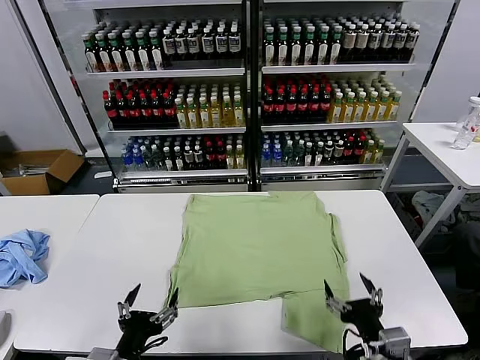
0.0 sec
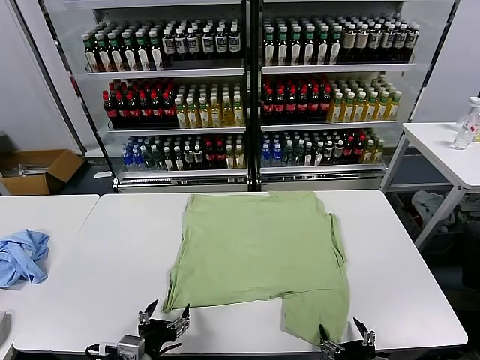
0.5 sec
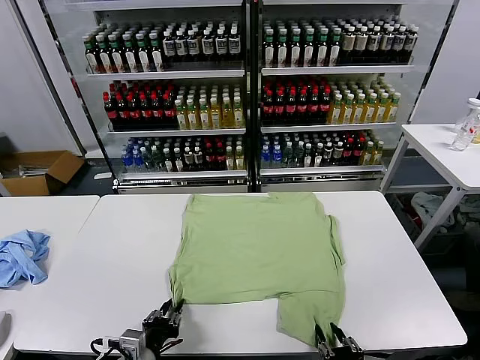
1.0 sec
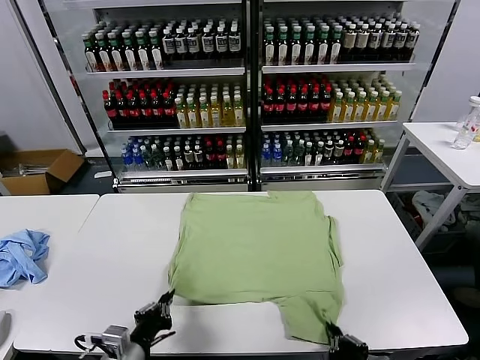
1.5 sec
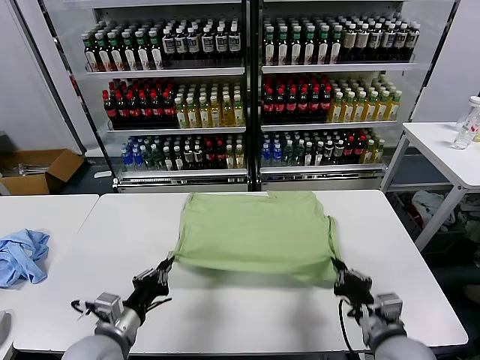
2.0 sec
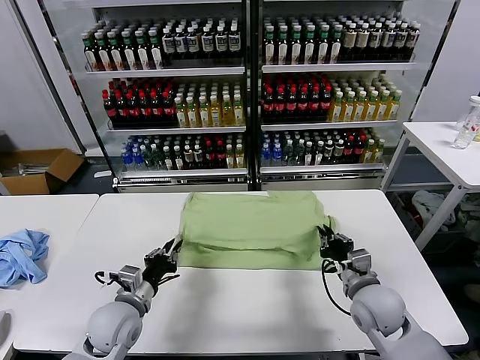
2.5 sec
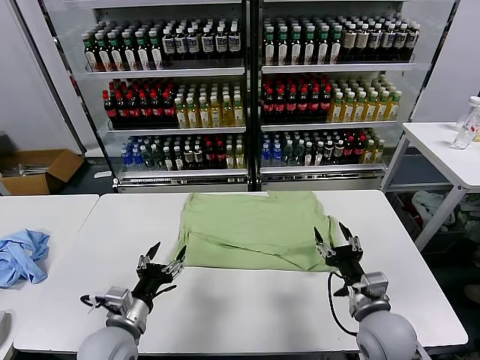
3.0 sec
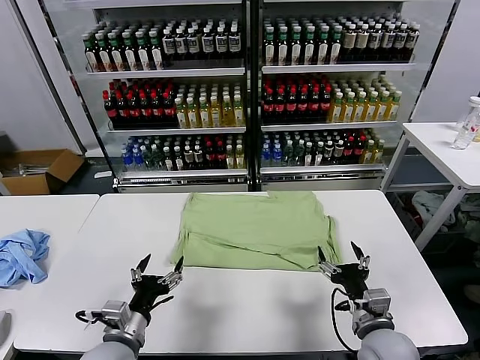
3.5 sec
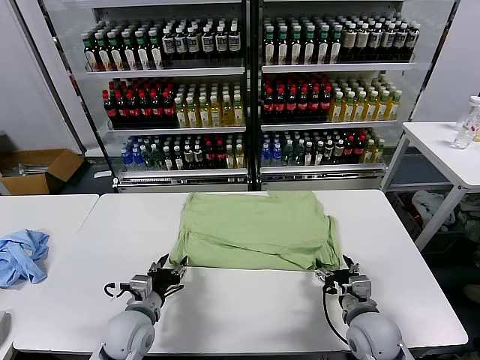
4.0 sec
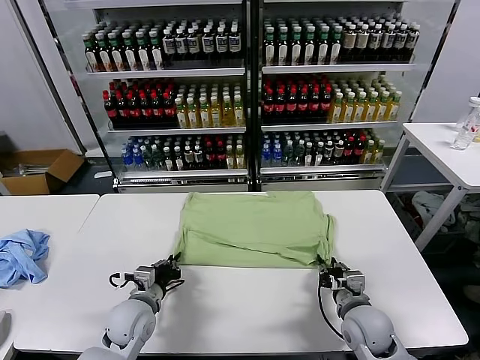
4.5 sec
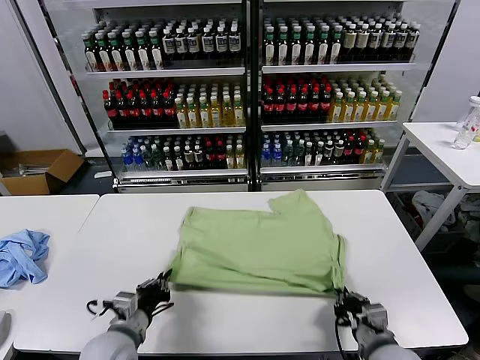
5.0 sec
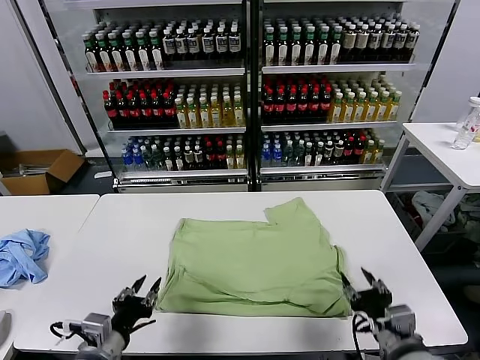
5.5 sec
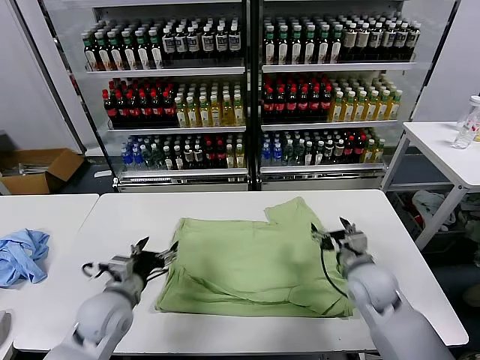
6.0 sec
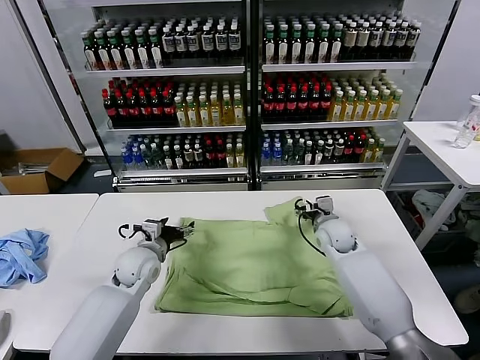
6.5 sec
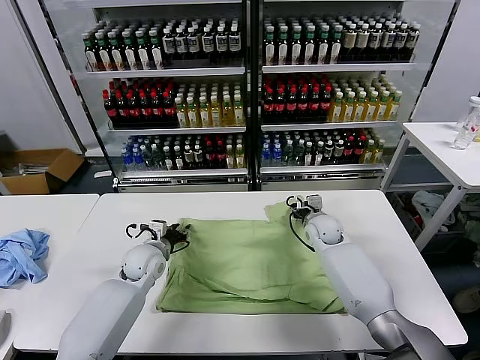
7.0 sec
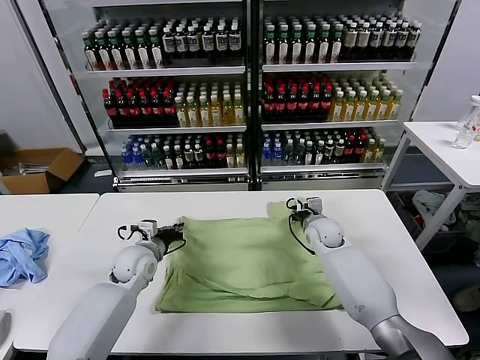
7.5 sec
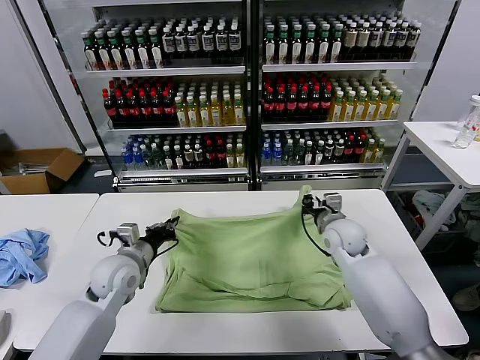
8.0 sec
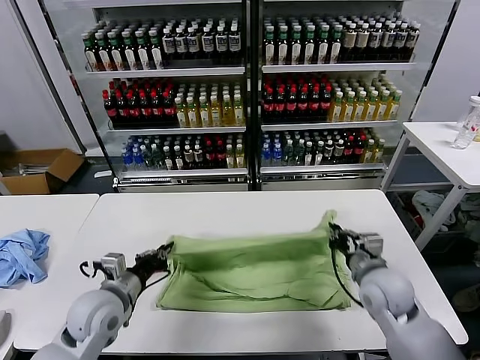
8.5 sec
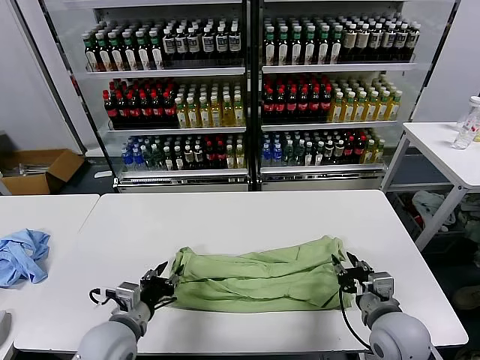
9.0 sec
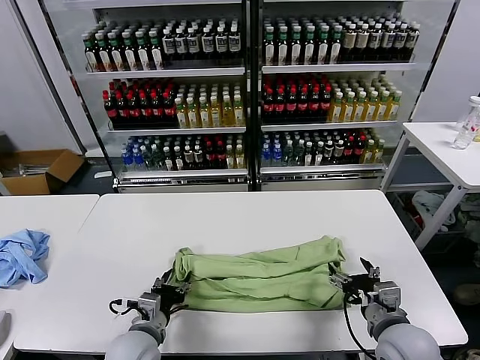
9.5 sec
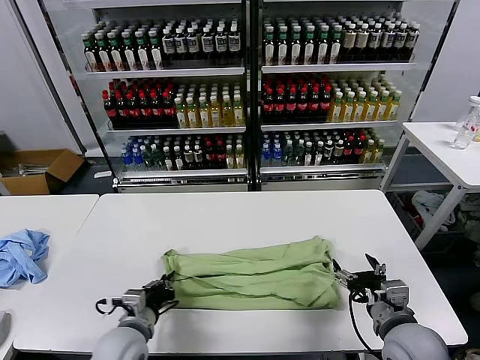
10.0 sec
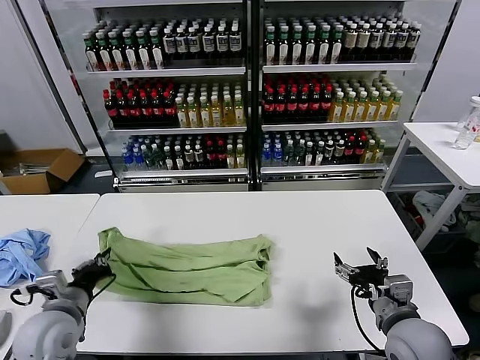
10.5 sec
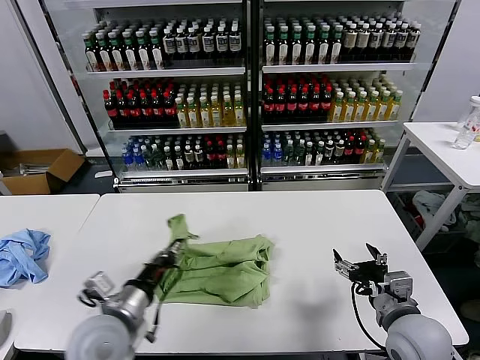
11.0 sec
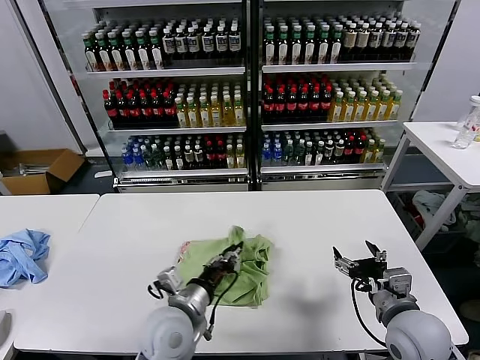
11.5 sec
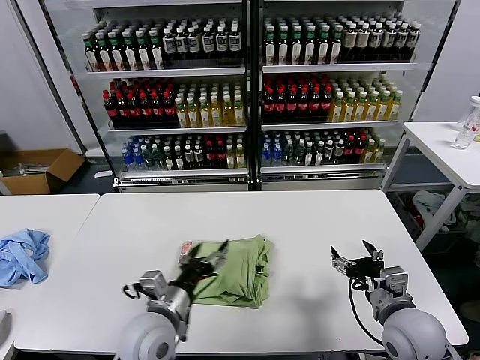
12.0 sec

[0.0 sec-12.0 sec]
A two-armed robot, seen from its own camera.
Task of the whole recording: fold and organize the clothes.
Step, 0.0 sec to 1.0 sec: use both grippers simultaneously to clamp the lower edge of the clothing fabric.
Step, 1.5 sec to 2.5 sec: use both grippers to drag the lower edge of the fabric forward and fold it over the upper edge.
Step, 3.5 sec to 5.0 sec: Drag the clothes downward with both gripper.
Step, 5.5 sec to 7.0 sec: use both grippers simultaneously to clamp the upper edge of the clothing fabric.
Step, 7.5 sec to 8.5 sec: use both grippers to drag the upper edge of the fabric backward and fold it over the lower edge.
Step, 9.0 sec to 10.0 sec: use the left gripper to clamp the left edge of the fabric.
Step, 10.5 sec to 11.5 sec: use the left gripper to drag the left edge of the fabric to the left and folds it over the right edge.
2.0 sec to 4.0 sec: The left gripper moves forward and backward over approximately 5 cm, changing direction 2 times, and opens up. Meanwhile the right gripper goes forward and backward, some 5 cm each way, reversing 2 times, and opens its fingers.
4.0 sec to 6.0 sec: The left gripper is displaced upward by approximately 5 cm, moves roughly 10 cm backward and comes back, and opens, while the right gripper heads forward and upward, covering approximately 15 cm, and closes and opens again.
6.0 sec to 8.0 sec: The two grippers go some 5 cm forward. The right gripper closes up. Meanwhile the left gripper closes its fingers.
8.0 sec to 10.0 sec: The left gripper goes roughly 15 cm backward and downward, and opens, then closes once more. The right gripper moves backward, approximately 25 cm, and opens.
10.0 sec to 12.0 sec: The left gripper heads to the right and upward, covering some 10 cm, and opens up.

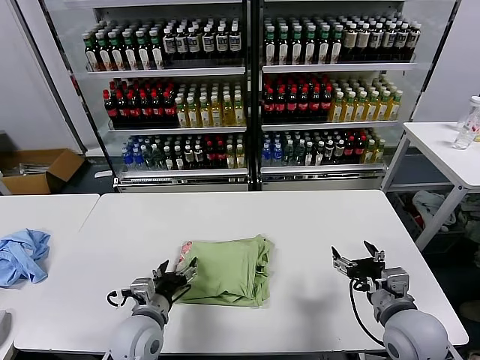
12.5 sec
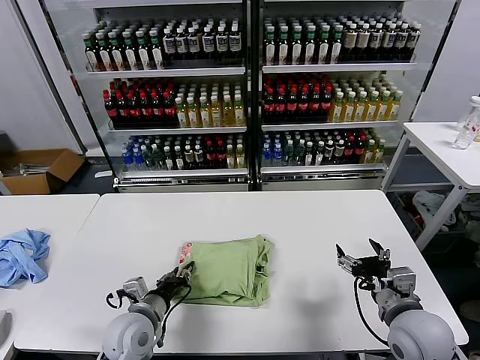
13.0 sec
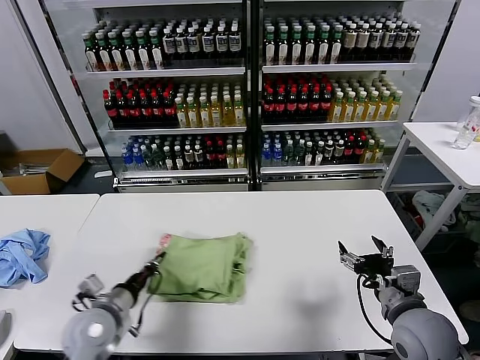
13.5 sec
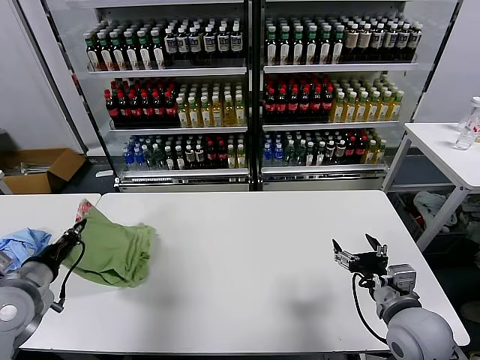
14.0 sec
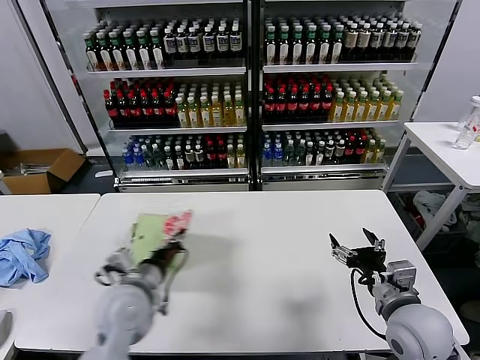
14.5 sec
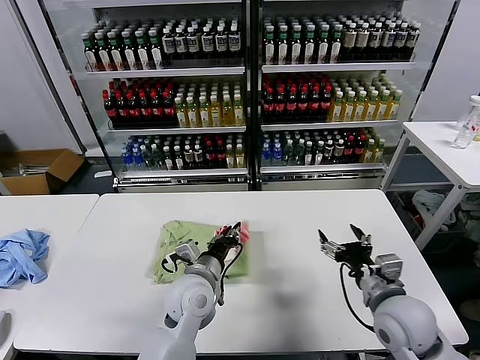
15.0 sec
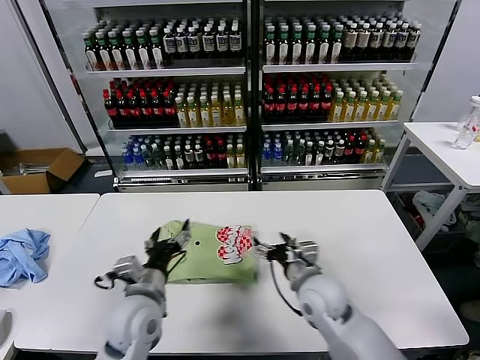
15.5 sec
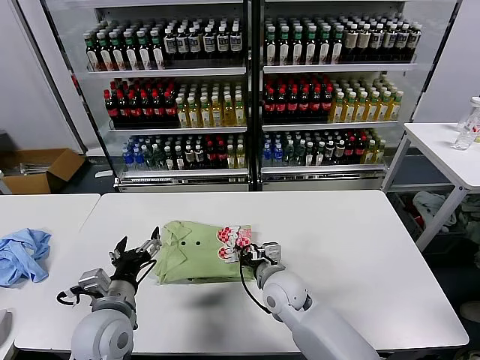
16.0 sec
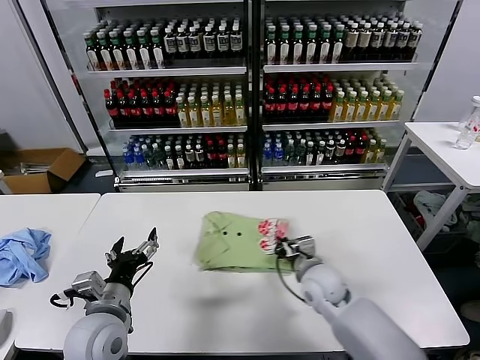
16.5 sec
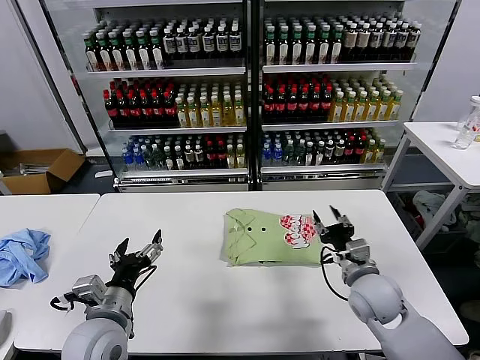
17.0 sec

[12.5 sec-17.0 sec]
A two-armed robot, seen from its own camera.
Task of the whole recording: fold and organize the clothes.
Step, 12.5 sec to 15.0 sec: Flip the folded clothes over with left gripper.
Step, 15.5 sec to 16.5 sec: Drag the clothes to the center of the table.
12.5 sec to 14.5 sec: The left gripper moves upward, roughly 10 cm, moves about 20 cm to the left and comes back, and closes up.
14.5 sec to 17.0 sec: The left gripper is displaced backward by approximately 5 cm, reaches roughly 15 cm to the right, then returns, and opens, while the right gripper shifts roughly 10 cm forward, goes to the left and returns, some 20 cm each way, and closes its fingers.

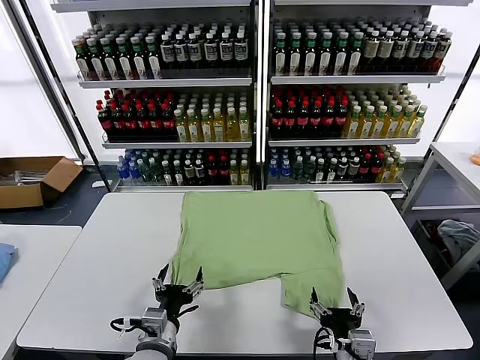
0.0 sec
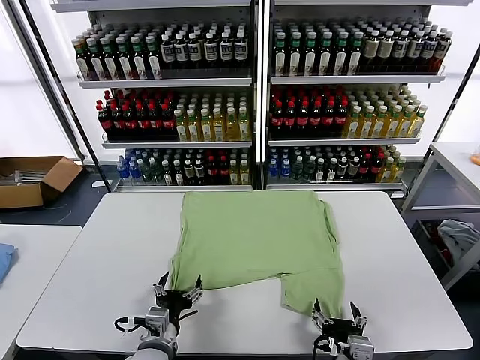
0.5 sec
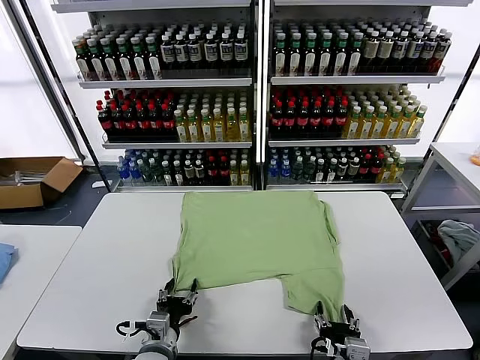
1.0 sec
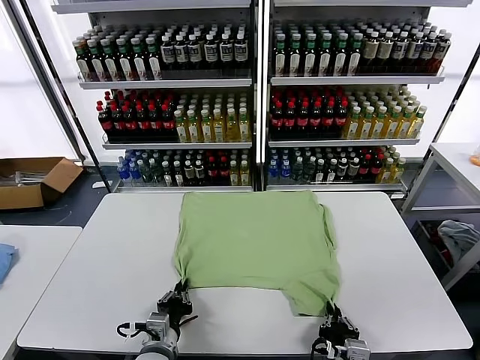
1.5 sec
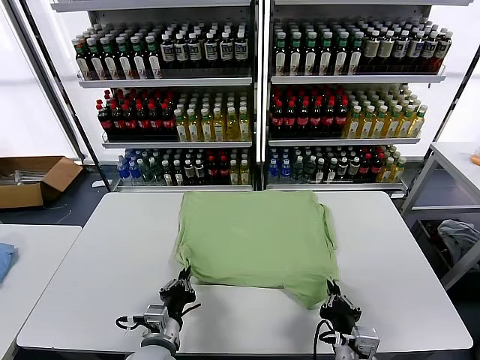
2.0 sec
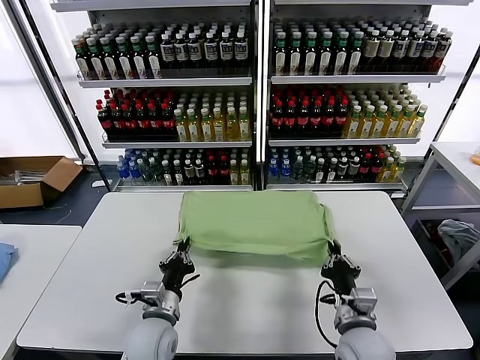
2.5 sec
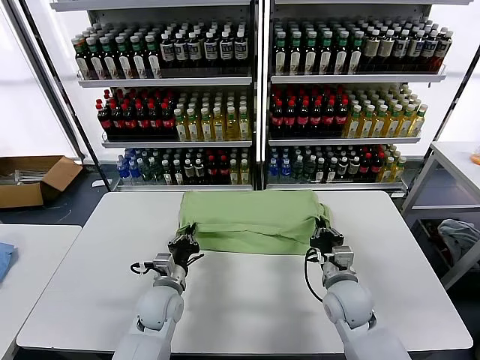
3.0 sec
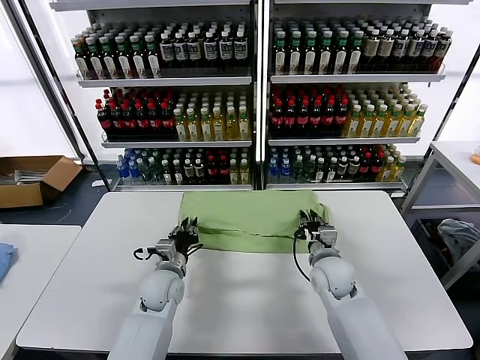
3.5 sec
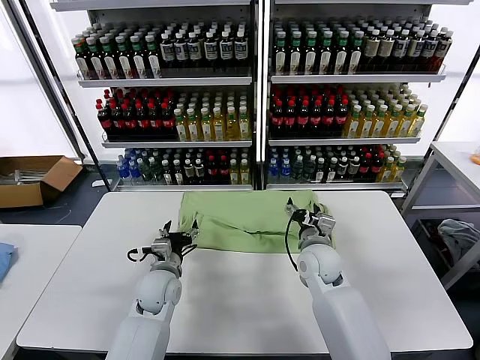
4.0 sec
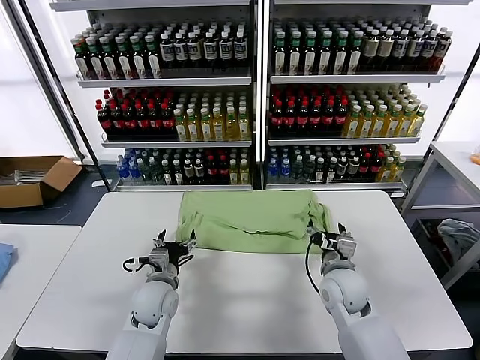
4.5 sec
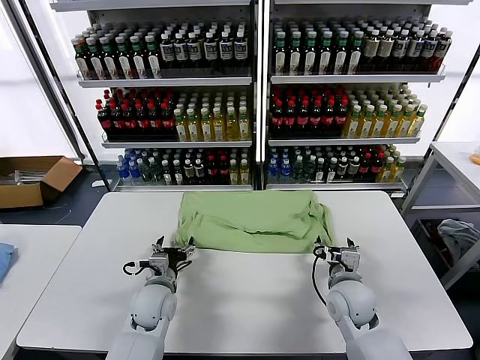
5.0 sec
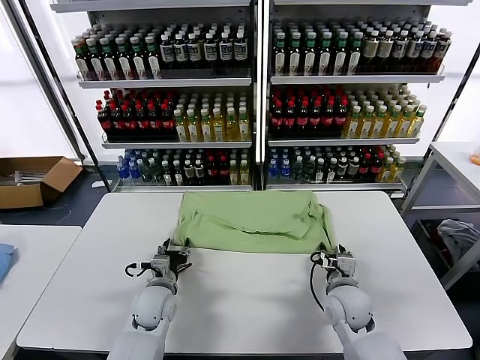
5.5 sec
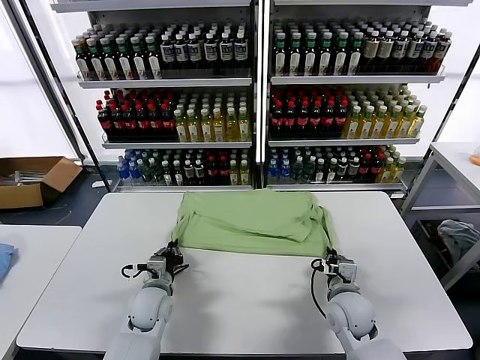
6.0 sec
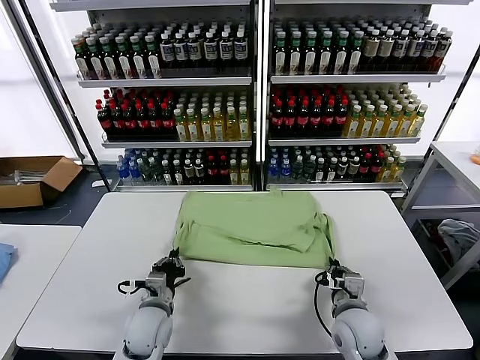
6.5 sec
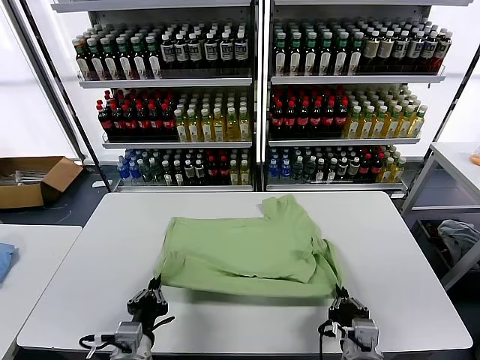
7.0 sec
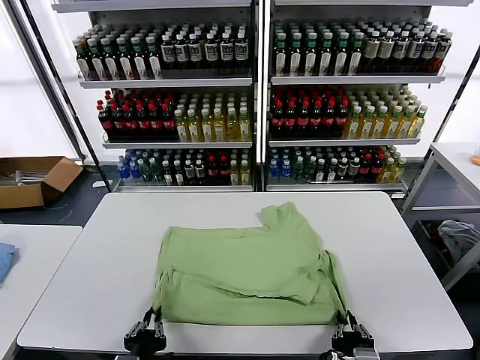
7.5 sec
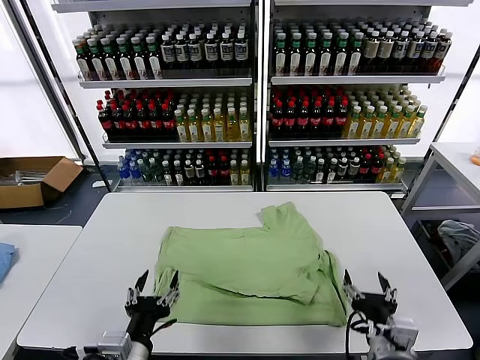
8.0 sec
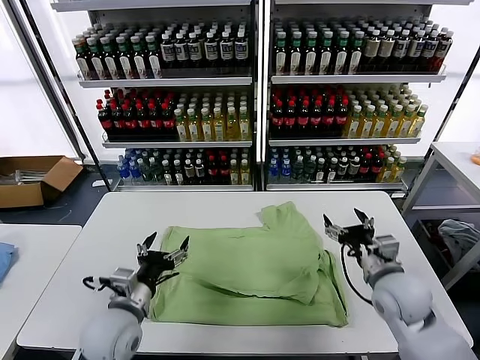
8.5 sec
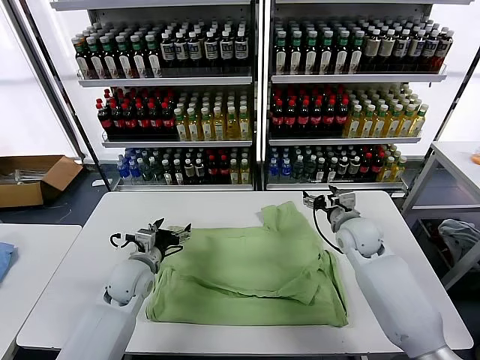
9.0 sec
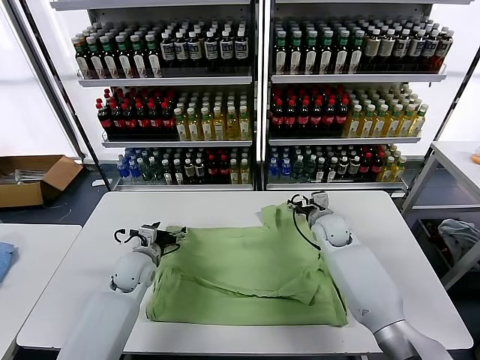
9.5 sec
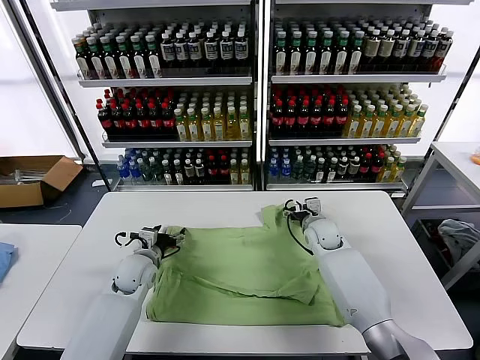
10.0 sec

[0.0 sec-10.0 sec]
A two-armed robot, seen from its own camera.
Task of the whole recording: fold and organize the clothes.
Step, 0.0 sec to 1.5 sec: use both grippers simultaneously to clamp the lower edge of the clothing fabric.
Step, 2.0 sec to 3.5 sec: use both grippers to drag the lower edge of the fabric forward and fold it over the upper edge.
Step, 4.0 sec to 7.5 sec: Drag the clothes downward with both gripper.
2.0 sec to 4.0 sec: The grippers both shift forward by some 20 cm. The left gripper opens up. The right gripper opens.
4.0 sec to 6.0 sec: The right gripper goes approximately 10 cm backward, downward and to the right, and closes up. The left gripper moves some 5 cm, and closes its fingers.
6.0 sec to 8.0 sec: The right gripper is displaced backward and upward by some 15 cm, and opens; the left gripper heads backward and upward, covering approximately 25 cm, and opens its fingers.
8.0 sec to 10.0 sec: Both grippers move forward, about 30 cm.
